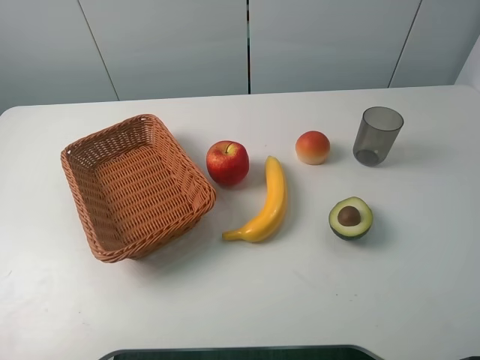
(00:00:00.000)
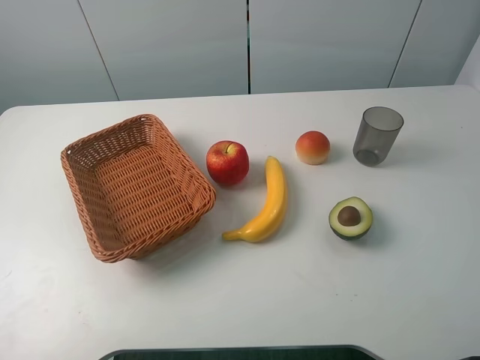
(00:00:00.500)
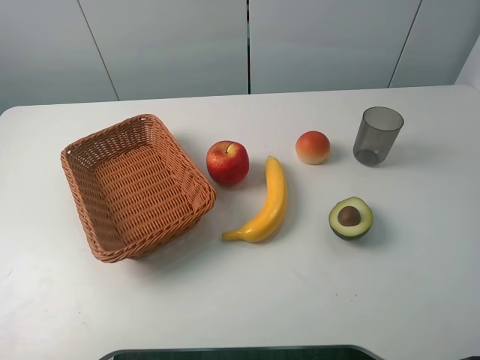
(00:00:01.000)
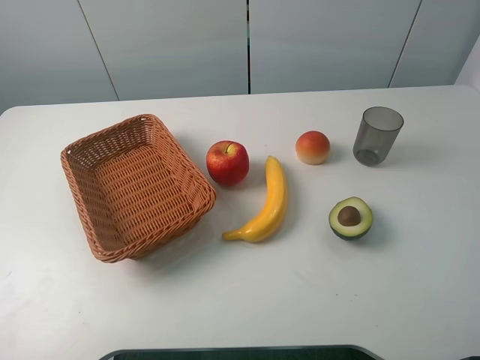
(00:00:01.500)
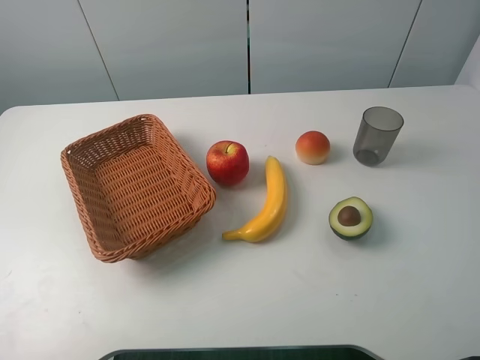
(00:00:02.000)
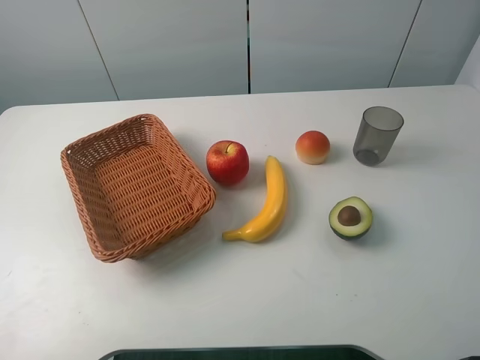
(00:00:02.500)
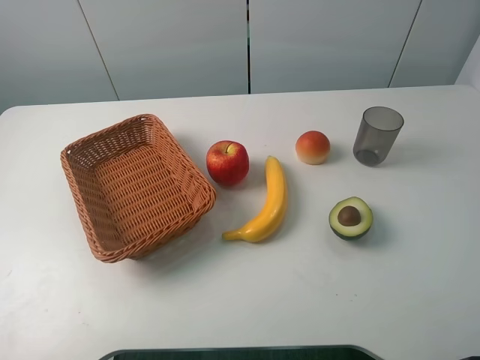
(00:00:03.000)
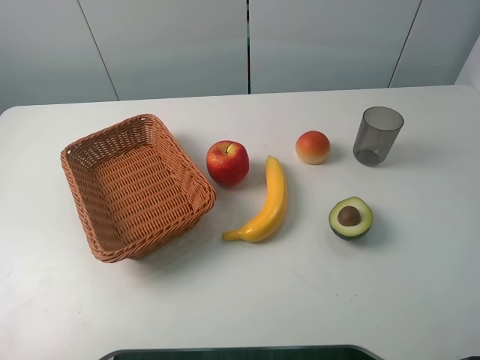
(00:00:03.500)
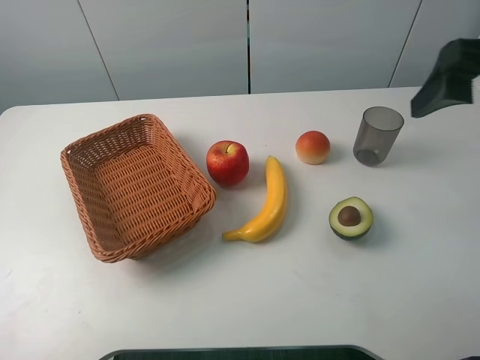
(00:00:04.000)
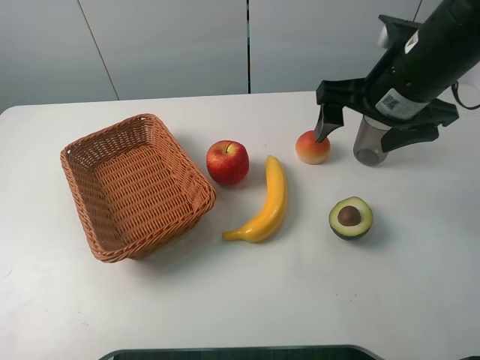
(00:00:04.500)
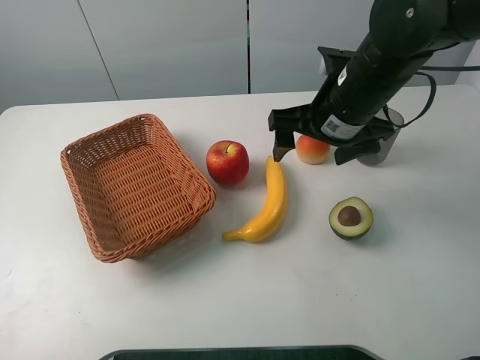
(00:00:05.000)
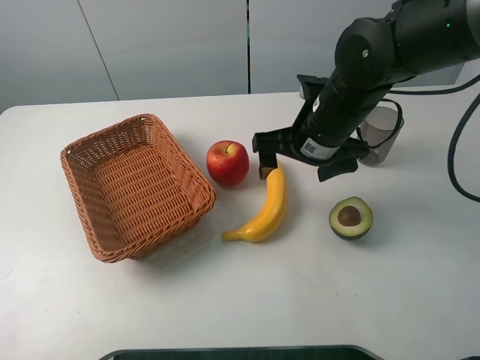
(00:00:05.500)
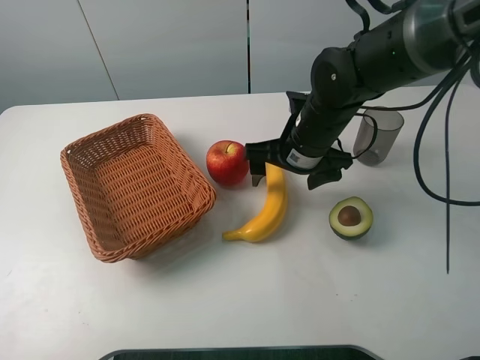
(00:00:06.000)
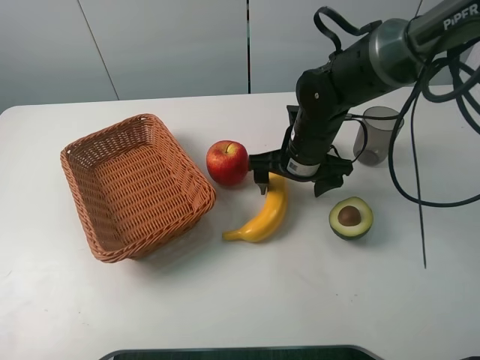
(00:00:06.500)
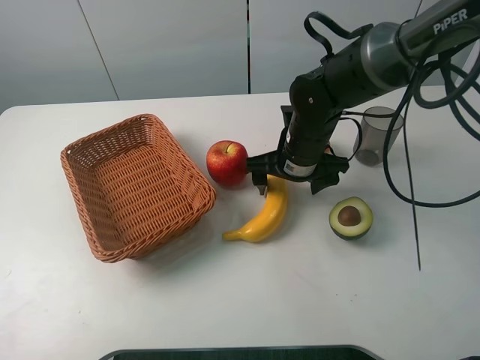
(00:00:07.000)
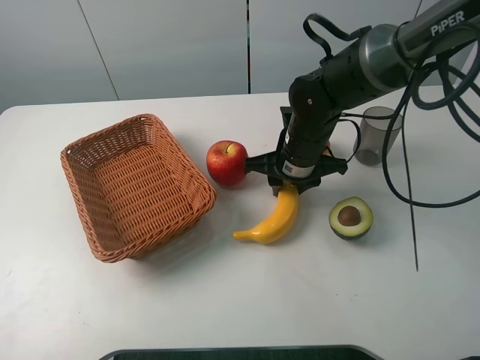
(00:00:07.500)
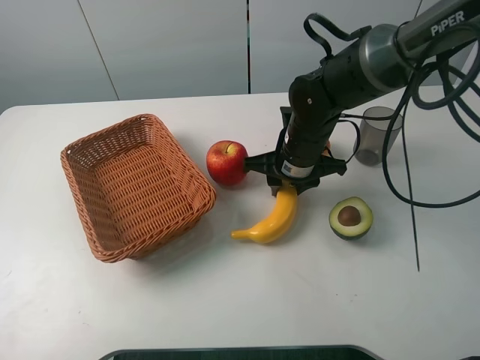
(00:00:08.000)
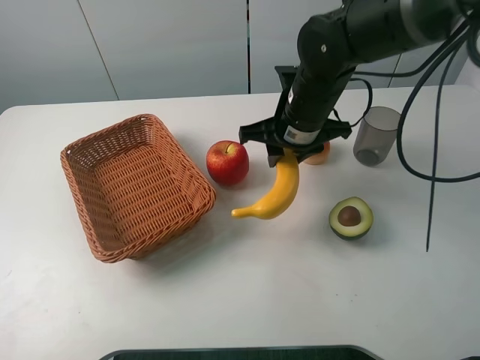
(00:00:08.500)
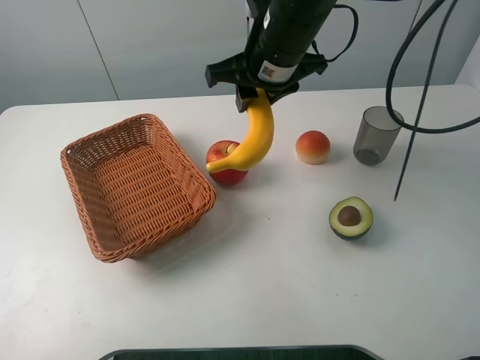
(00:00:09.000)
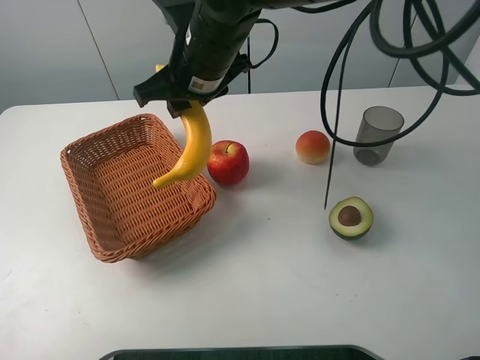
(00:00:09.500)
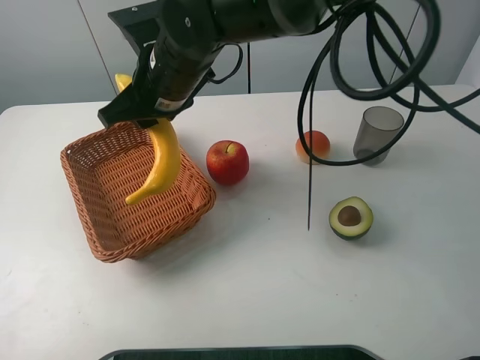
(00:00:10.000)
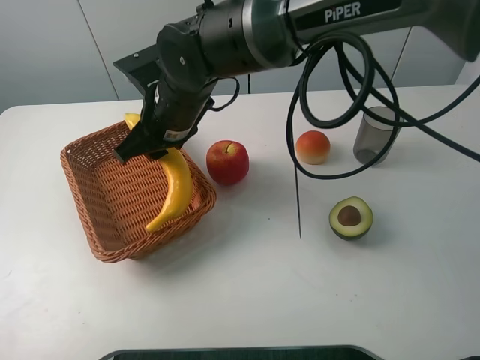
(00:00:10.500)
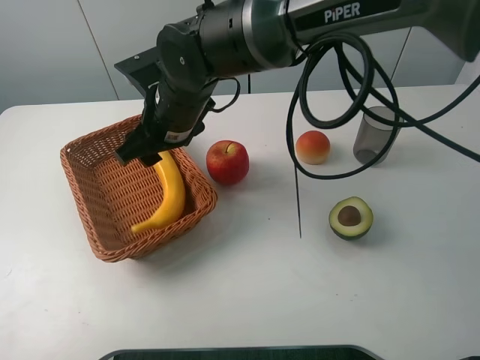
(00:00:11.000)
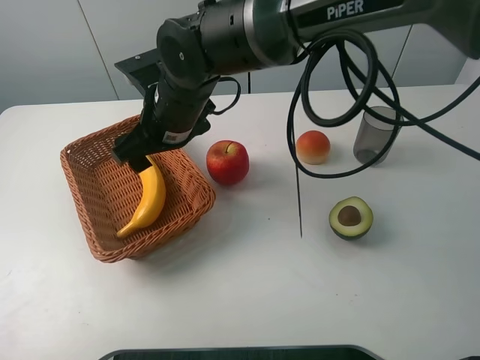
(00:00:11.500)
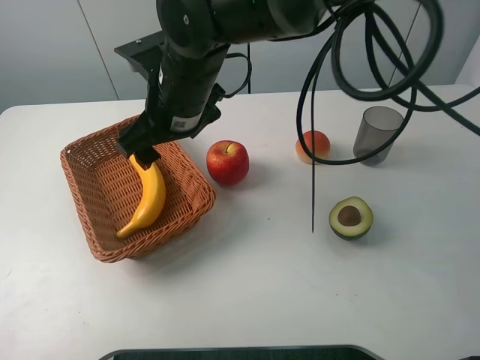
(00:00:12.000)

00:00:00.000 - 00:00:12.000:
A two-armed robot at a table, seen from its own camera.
Task of the whole recording: randomly pick up an item from the table and put it in the basket.
Step, 00:00:00.000 - 00:00:07.500: Grasp the banana with the right gripper.
00:00:02.000 - 00:00:04.000: The right gripper shifts approximately 20 cm forward.
00:00:04.000 - 00:00:06.000: The right gripper is displaced downward, to the left and forward by some 25 cm.
00:00:06.000 - 00:00:08.000: The right gripper closes up.
00:00:08.000 - 00:00:10.000: The right gripper goes some 20 cm to the left and upward.
00:00:10.000 - 00:00:12.000: The right gripper opens up.

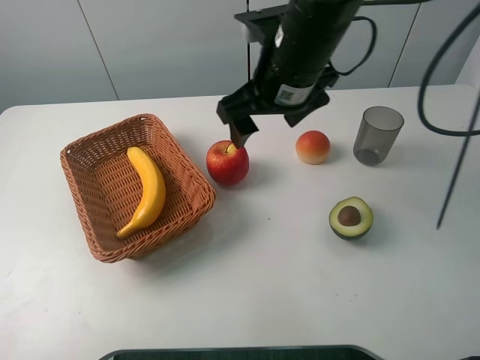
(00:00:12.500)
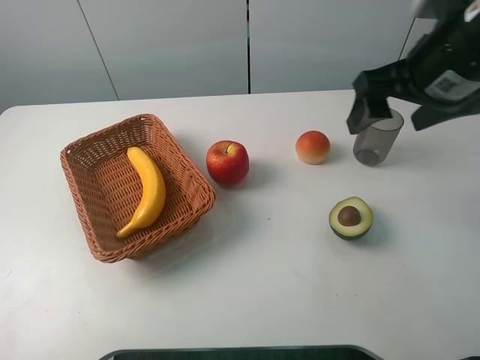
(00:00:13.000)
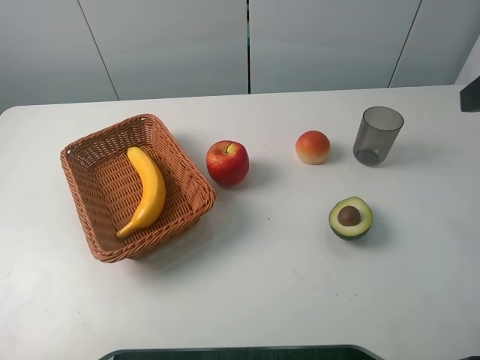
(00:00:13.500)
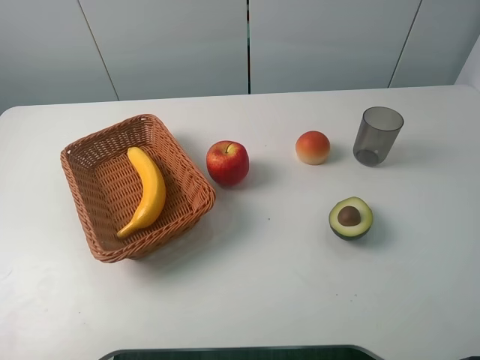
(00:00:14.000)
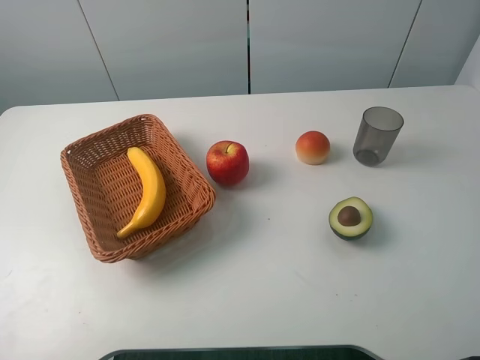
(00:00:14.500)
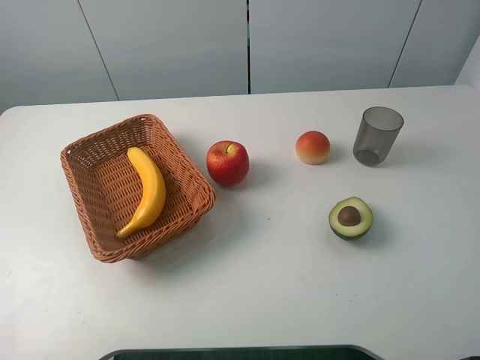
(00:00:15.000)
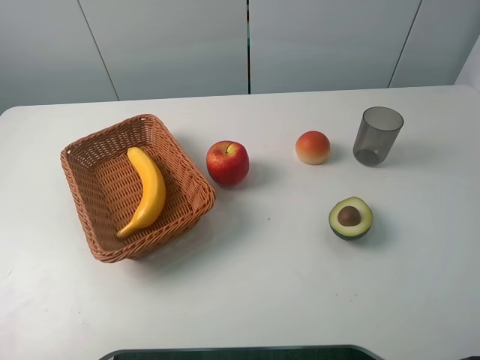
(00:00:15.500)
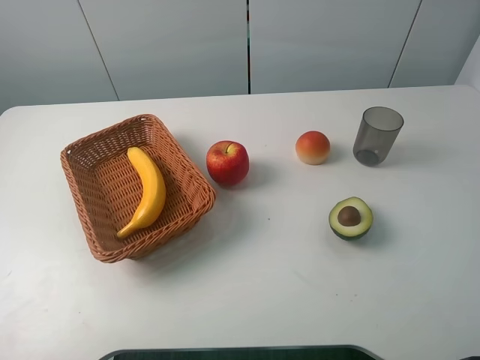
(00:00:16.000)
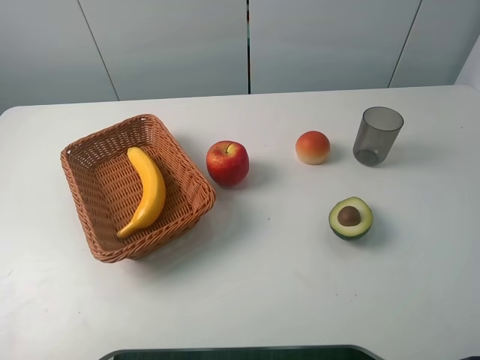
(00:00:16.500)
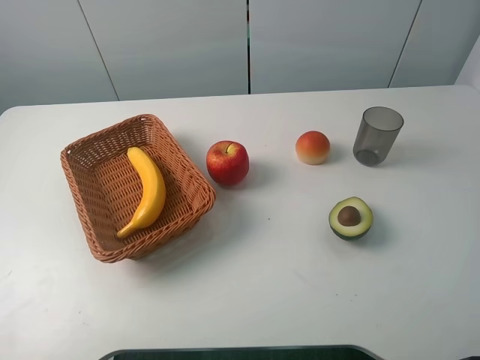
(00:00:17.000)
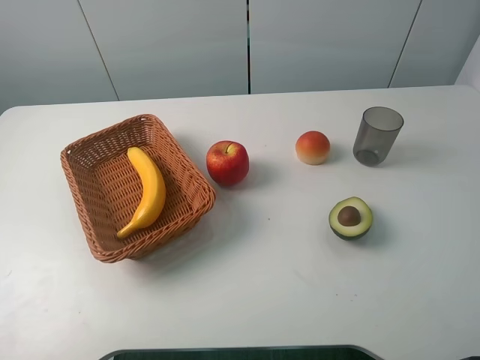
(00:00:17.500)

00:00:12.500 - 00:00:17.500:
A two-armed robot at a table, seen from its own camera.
Task of the whole recording: randomly pick up an item from the table and put it in the basket.
00:00:12.500 - 00:00:15.000: The right gripper is displaced backward and to the right by some 35 cm.
00:00:15.000 - 00:00:17.500: Neither gripper changes place.
